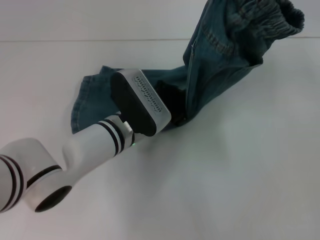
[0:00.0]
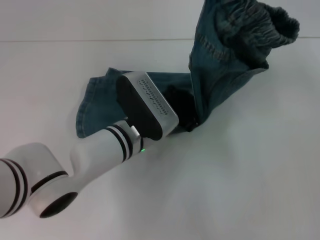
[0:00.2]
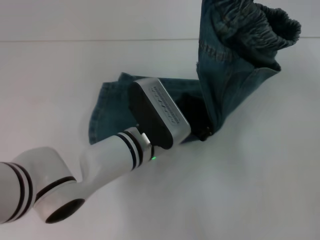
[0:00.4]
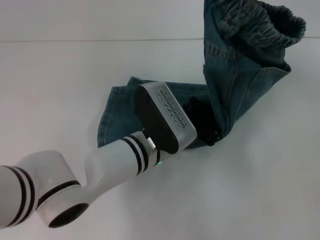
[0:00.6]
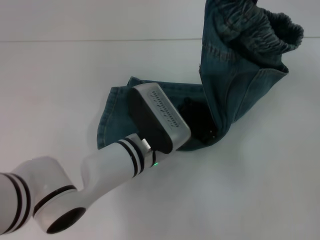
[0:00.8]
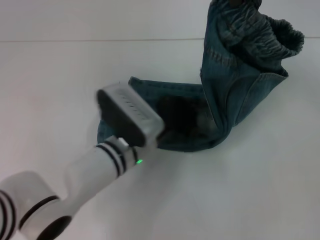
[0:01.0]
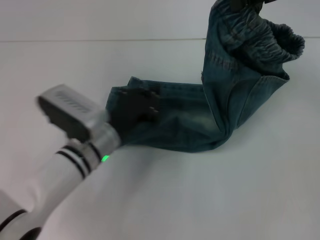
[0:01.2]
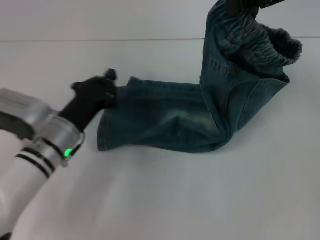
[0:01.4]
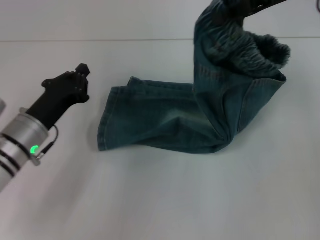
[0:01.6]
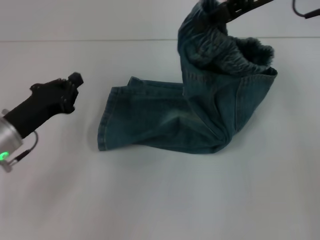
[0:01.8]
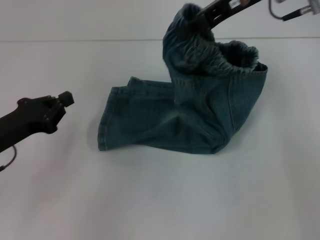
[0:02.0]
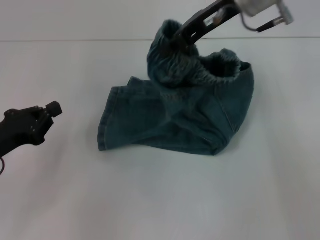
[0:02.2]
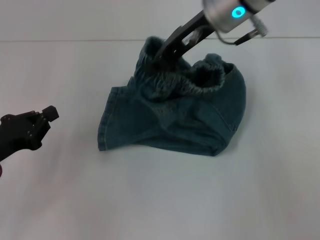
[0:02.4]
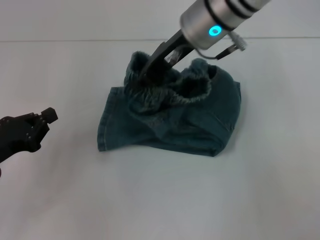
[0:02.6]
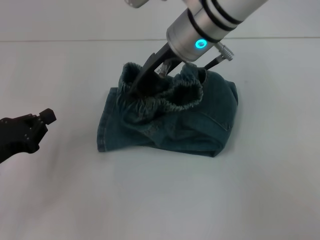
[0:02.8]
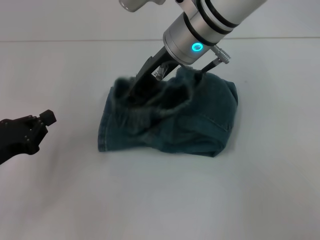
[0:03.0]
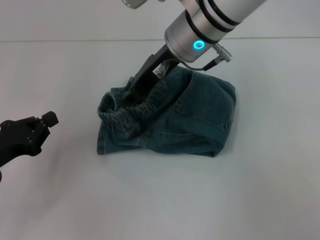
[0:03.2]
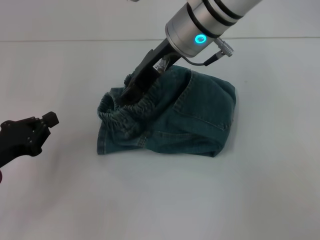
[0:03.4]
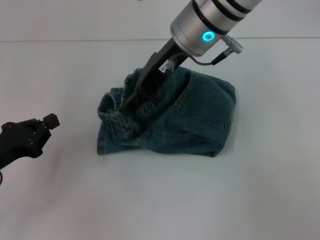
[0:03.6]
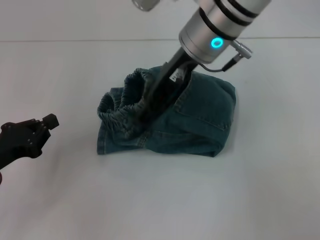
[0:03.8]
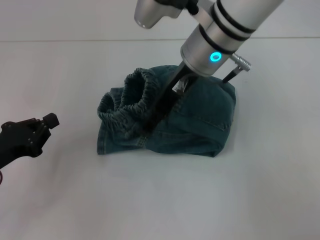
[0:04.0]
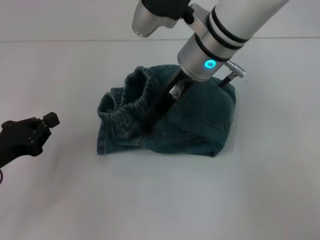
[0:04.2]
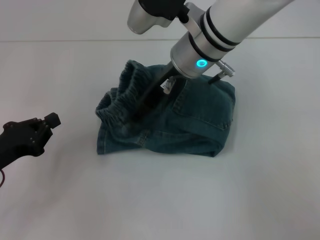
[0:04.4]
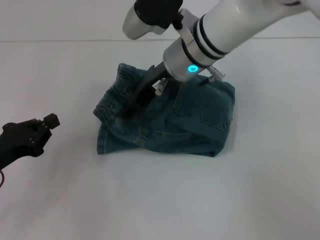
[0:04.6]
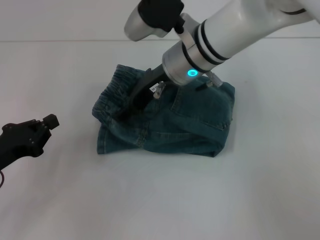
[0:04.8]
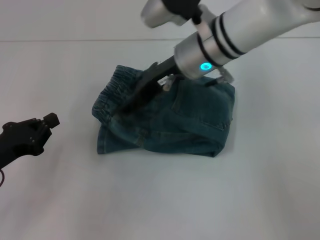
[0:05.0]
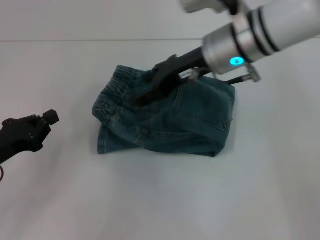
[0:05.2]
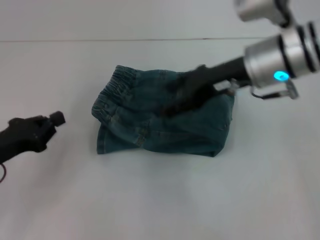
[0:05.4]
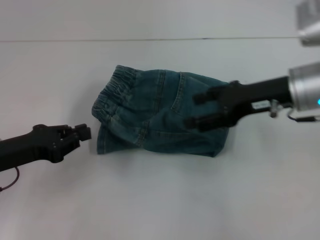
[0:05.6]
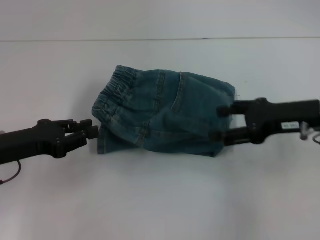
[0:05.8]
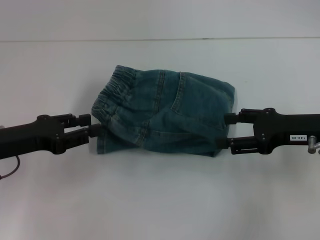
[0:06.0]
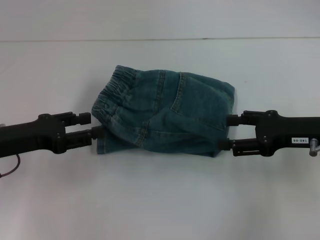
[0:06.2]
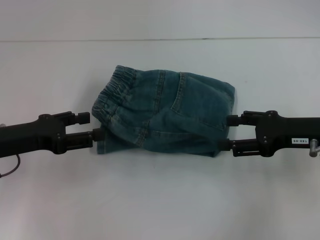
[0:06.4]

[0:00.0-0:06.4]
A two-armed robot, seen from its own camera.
Step, 0:01.0 to 0:03.6: Fold to the left with your right hand.
Step, 0:03.8 to 0:05.4: Adjust the pants with your right hand.
0:00.0 to 0:01.6: The left gripper travels to the left by some 15 cm; the right gripper changes place by roughly 5 cm.
0:01.6 to 0:03.2: The left gripper is displaced to the left and backward by roughly 10 cm. The right gripper is displaced to the left by about 20 cm.
0:03.2 to 0:04.8: The right gripper opens its fingers.
0:04.8 to 0:06.4: The left gripper ends up some 5 cm from where it was, and opens. The right gripper heads to the right and backward, covering roughly 25 cm.
